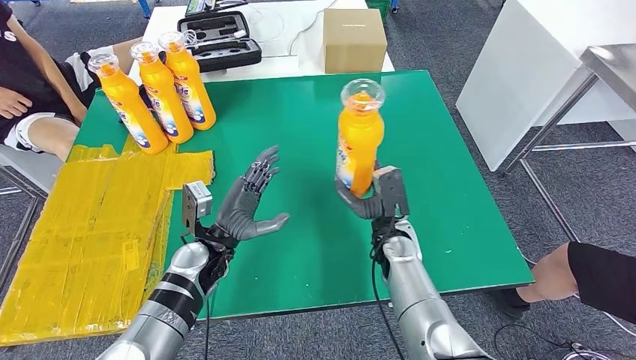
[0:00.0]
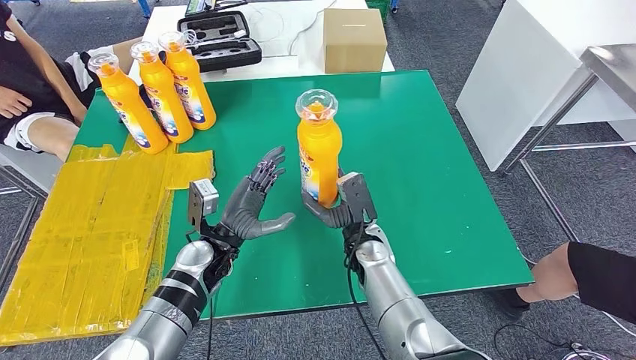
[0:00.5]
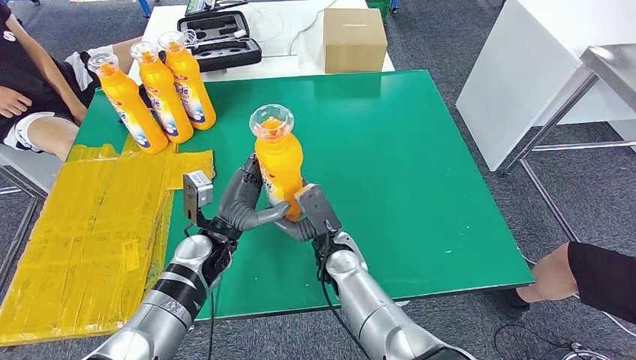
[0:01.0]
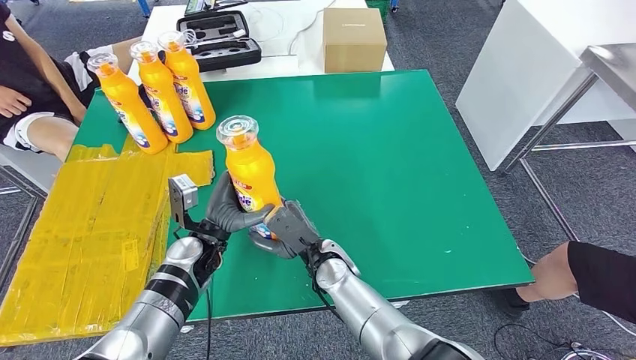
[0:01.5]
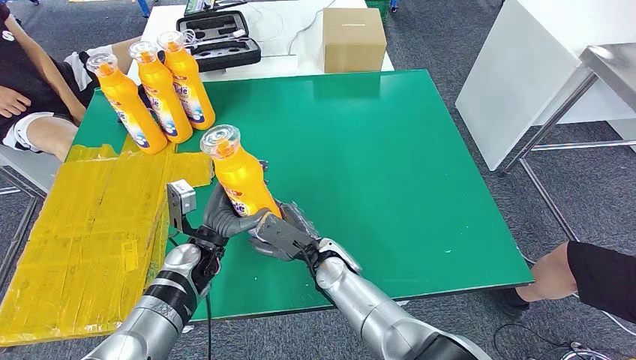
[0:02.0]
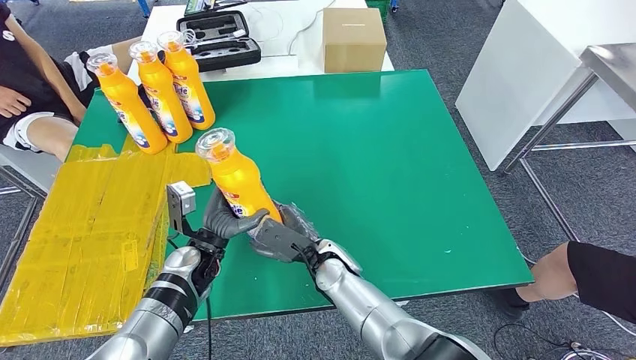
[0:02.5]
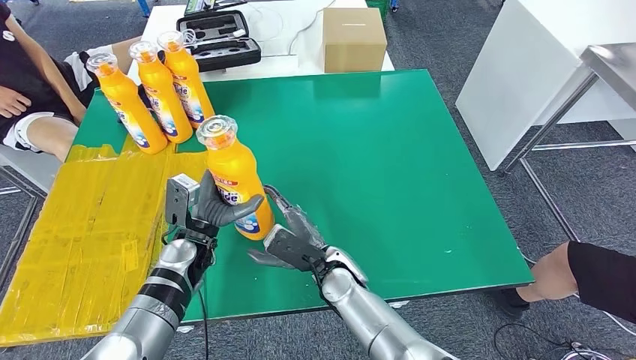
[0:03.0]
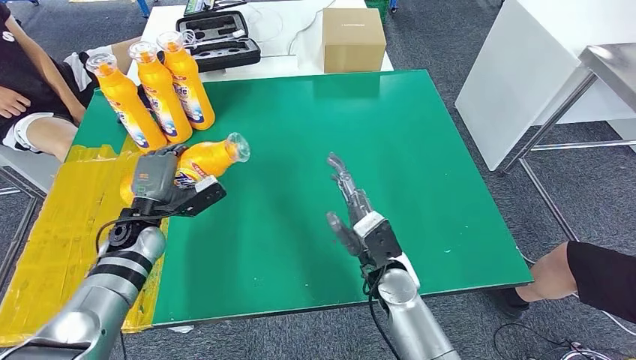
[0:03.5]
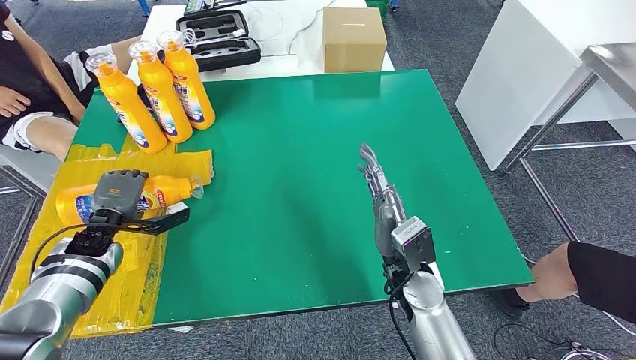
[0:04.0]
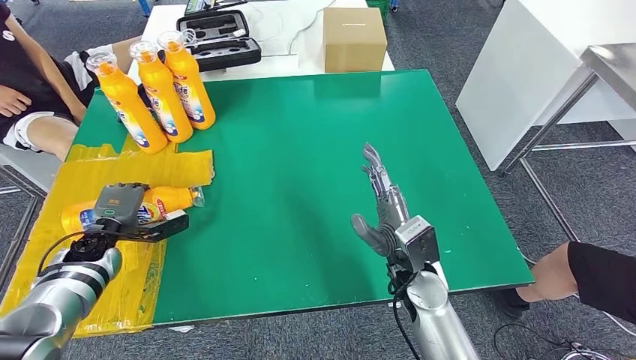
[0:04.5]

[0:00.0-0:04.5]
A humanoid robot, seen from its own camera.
Step, 0:00.5 to 0:04.5: Flip the fast-moving consumer goods bottle to the front side.
0:00.0 to 0:02.0: The right hand heads to the left, covering some 15 cm.
0:02.0 to 0:04.5: The left hand heads to the left, covering approximately 20 cm. Meanwhile the right hand is displaced to the right by roughly 15 cm.
